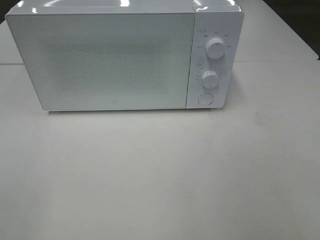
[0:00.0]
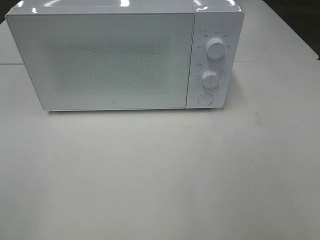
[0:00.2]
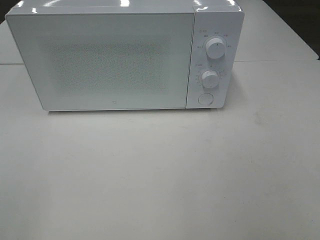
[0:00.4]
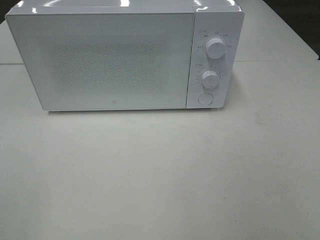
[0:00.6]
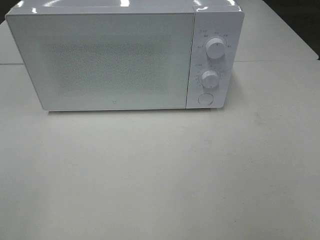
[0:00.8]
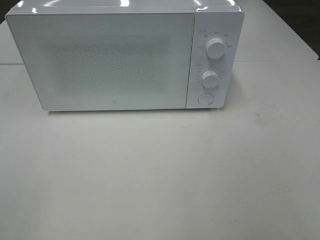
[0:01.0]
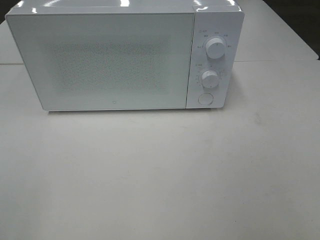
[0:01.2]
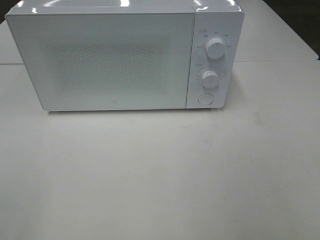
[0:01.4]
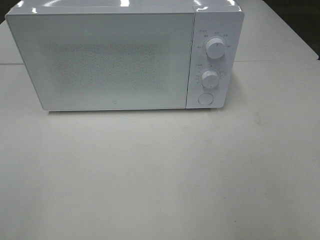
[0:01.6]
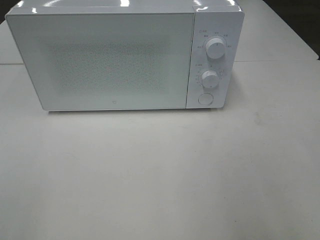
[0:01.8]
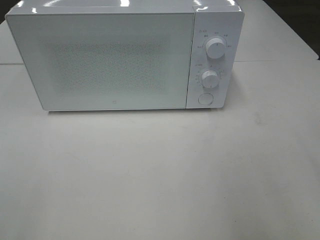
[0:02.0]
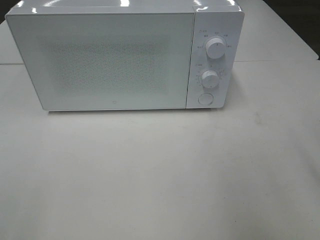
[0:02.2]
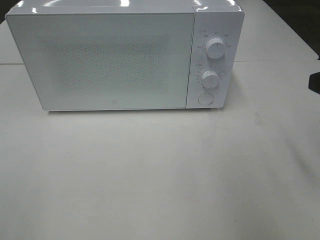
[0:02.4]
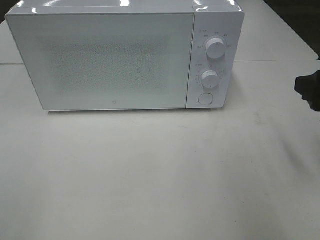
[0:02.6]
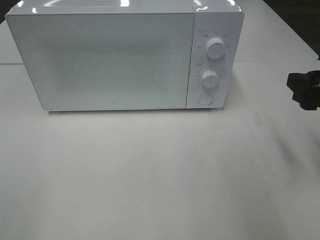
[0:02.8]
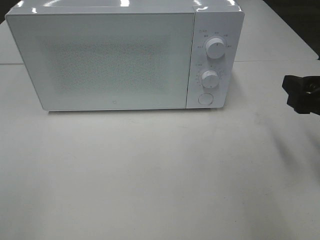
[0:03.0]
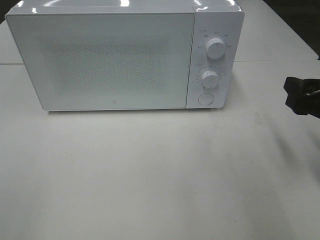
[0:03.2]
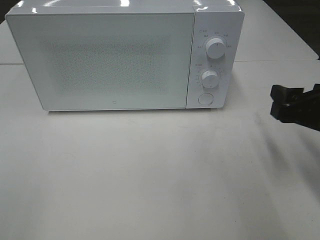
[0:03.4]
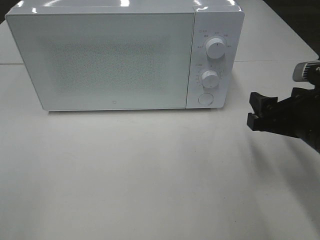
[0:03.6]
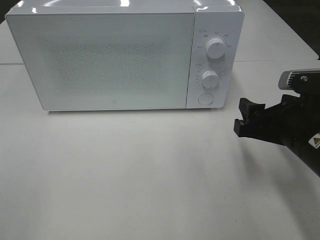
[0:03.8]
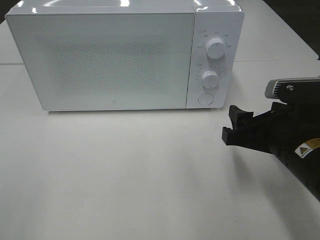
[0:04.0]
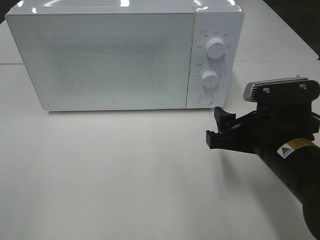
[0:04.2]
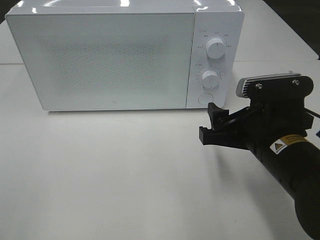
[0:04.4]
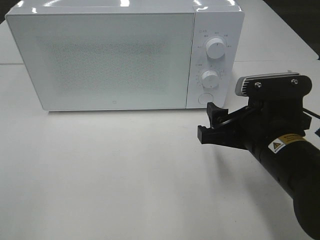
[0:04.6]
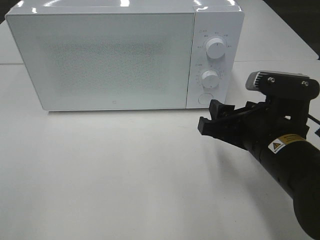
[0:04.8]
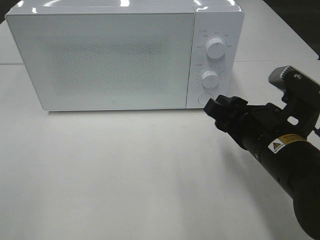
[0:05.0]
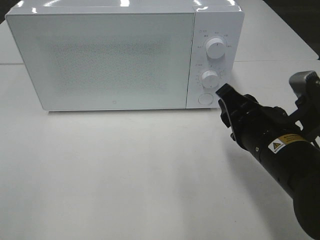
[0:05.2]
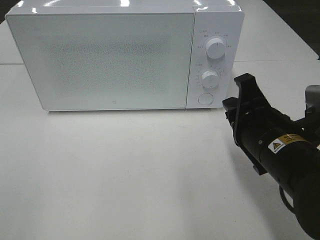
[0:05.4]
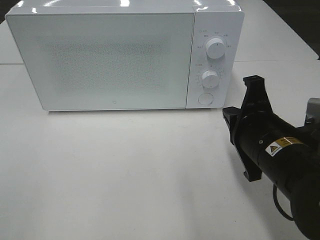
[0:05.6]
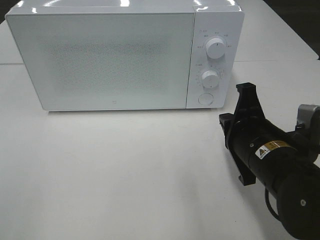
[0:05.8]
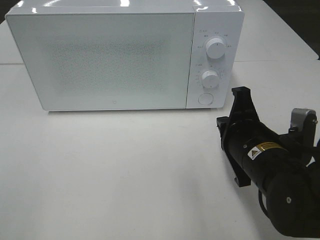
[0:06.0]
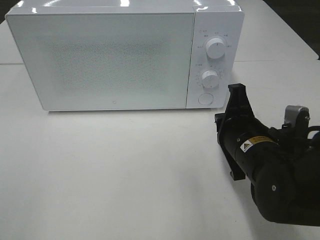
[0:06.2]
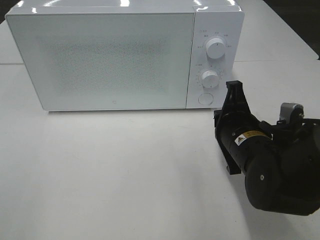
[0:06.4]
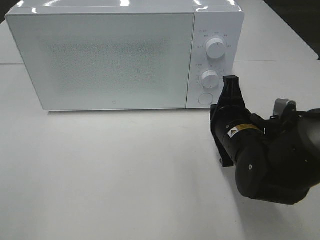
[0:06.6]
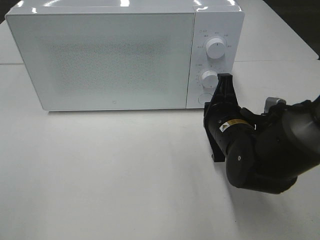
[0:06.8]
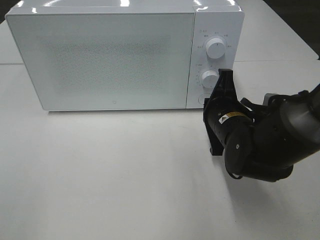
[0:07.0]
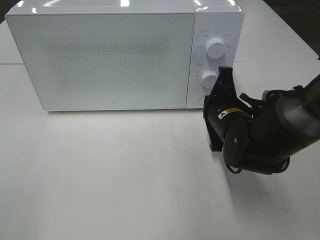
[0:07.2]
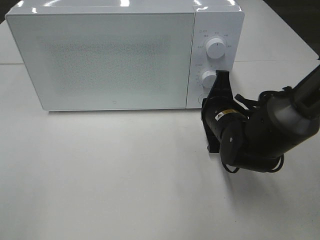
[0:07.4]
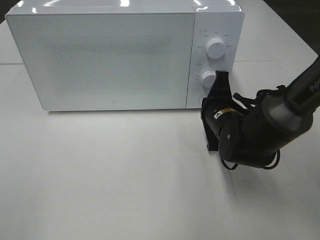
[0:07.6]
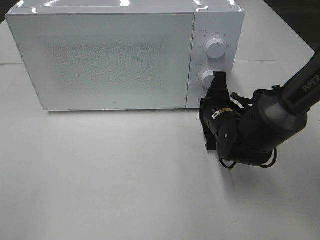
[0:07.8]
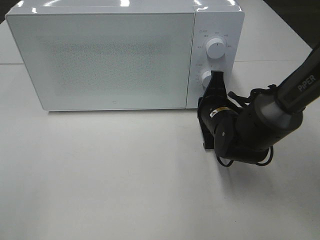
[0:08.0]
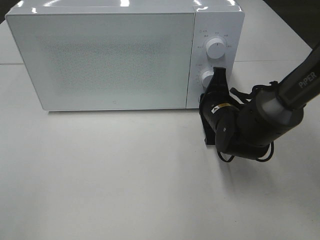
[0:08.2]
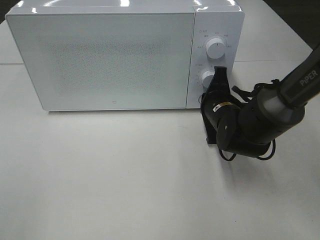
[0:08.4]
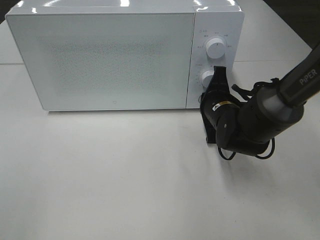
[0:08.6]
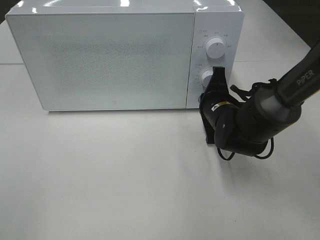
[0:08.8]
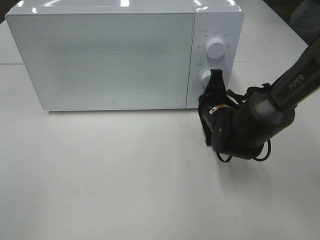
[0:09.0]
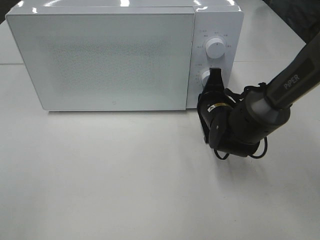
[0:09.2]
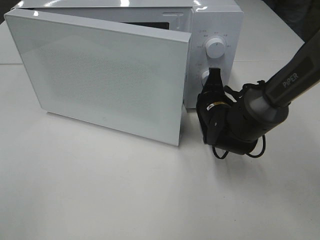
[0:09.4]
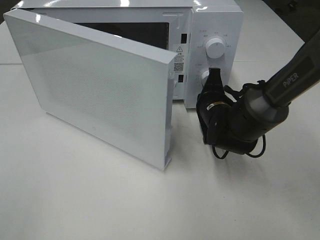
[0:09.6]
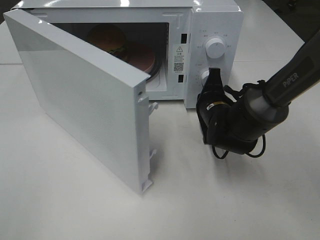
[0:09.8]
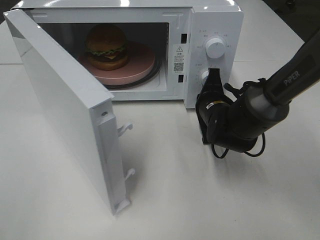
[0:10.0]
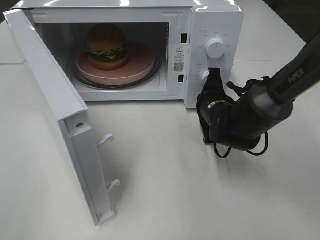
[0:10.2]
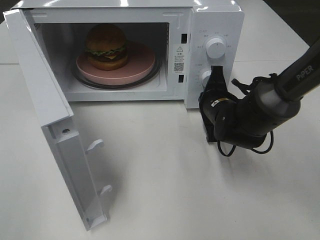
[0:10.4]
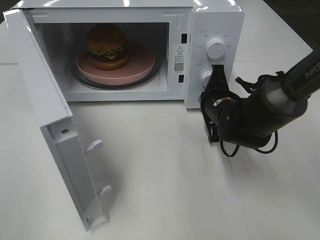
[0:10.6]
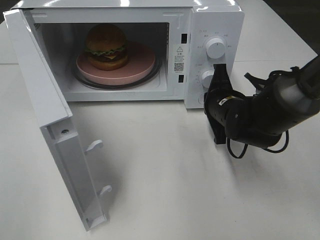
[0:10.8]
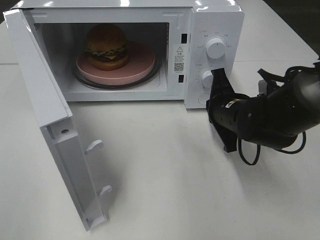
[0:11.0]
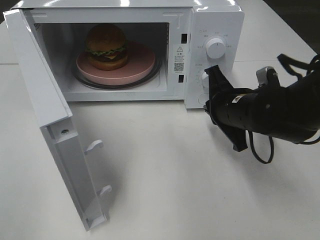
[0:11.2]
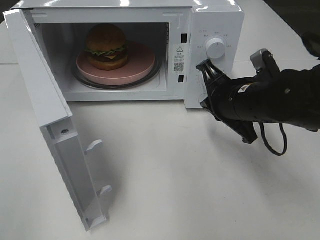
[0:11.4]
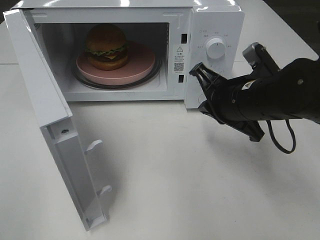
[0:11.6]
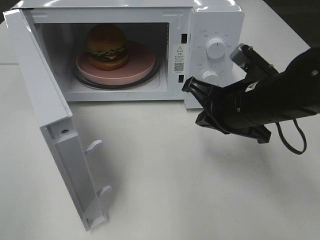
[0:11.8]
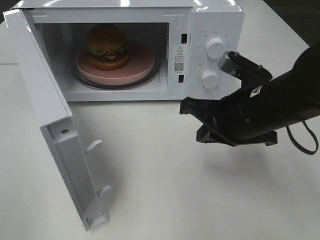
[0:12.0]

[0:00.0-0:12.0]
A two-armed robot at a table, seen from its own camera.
Task of the whole recording: Heat the burger.
Step, 0:00.0 to 0:10.8: Right hand: press the switch.
0:01.6 to 0:03.0: The right gripper is displaced forward and downward by about 20 cm.
0:03.0 to 0:04.4: The right gripper goes some 10 cm to the left.
0:04.4 to 0:06.0: The right gripper closes its fingers.
0:06.0 to 0:07.6: The right gripper shifts approximately 10 cm forward.
0:07.6 to 0:09.0: There are only small adjustments of the grippers.
0:10.4 to 0:12.0: The right gripper shifts approximately 15 cm backward and upward.

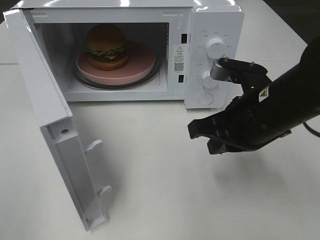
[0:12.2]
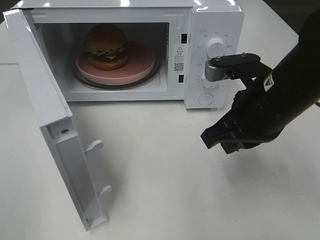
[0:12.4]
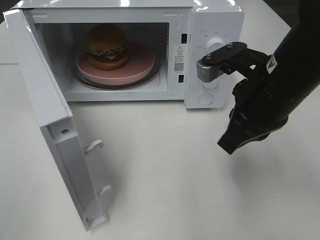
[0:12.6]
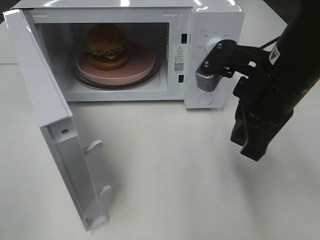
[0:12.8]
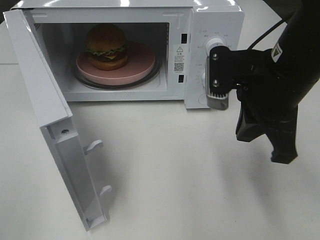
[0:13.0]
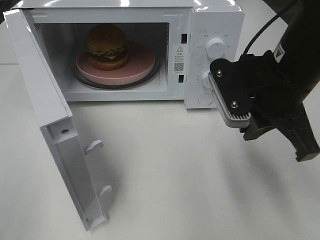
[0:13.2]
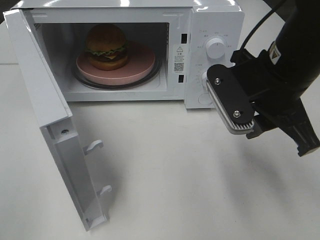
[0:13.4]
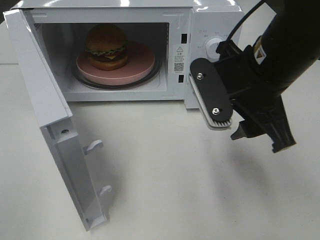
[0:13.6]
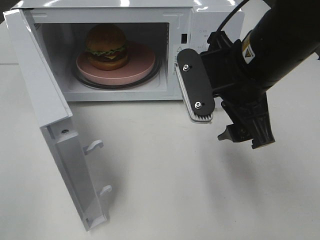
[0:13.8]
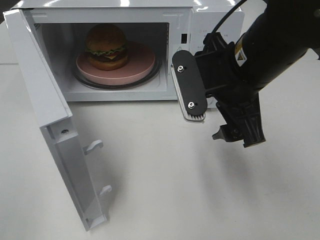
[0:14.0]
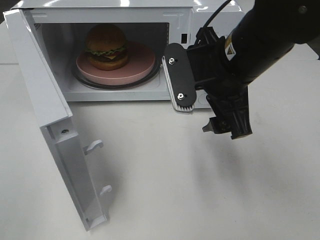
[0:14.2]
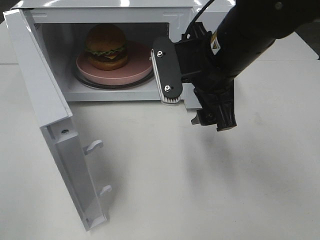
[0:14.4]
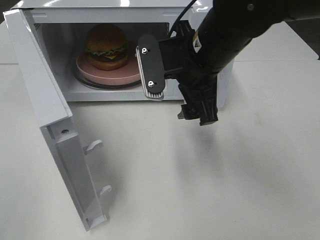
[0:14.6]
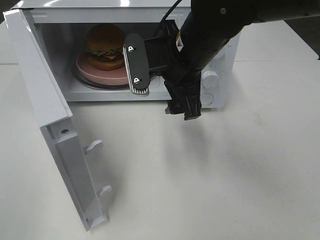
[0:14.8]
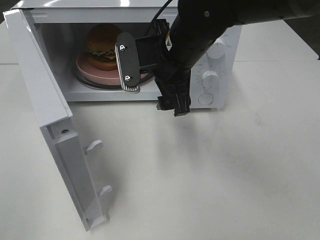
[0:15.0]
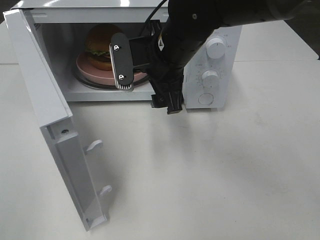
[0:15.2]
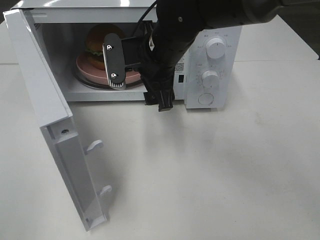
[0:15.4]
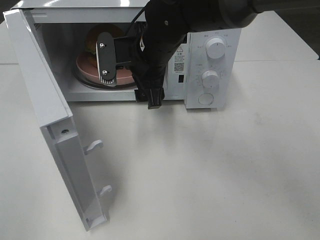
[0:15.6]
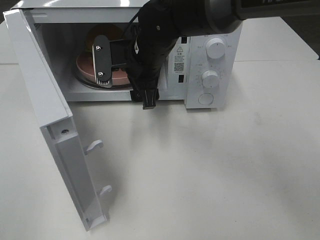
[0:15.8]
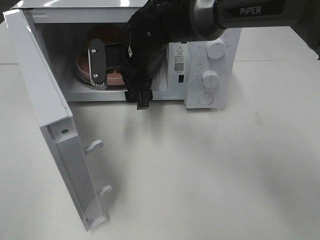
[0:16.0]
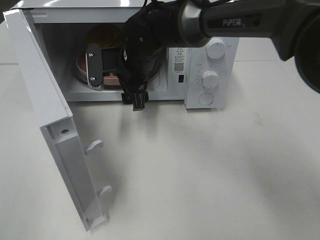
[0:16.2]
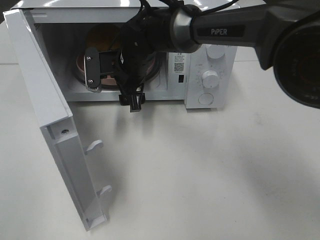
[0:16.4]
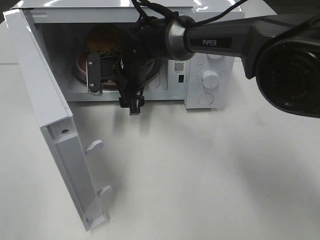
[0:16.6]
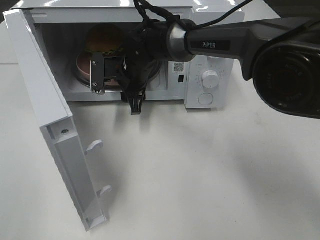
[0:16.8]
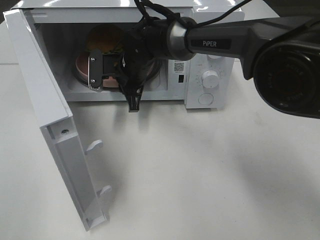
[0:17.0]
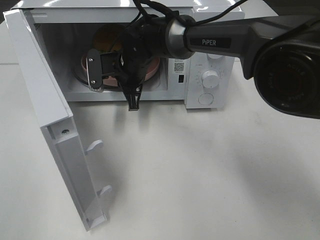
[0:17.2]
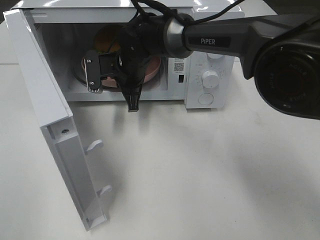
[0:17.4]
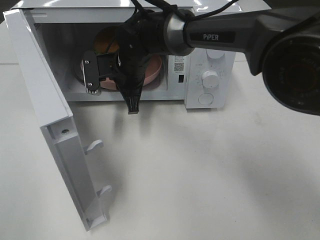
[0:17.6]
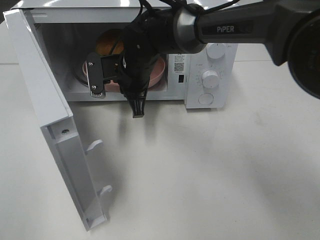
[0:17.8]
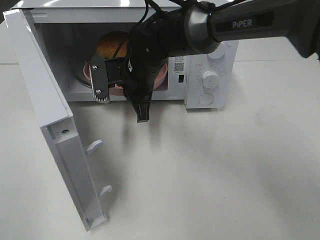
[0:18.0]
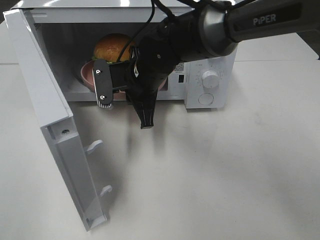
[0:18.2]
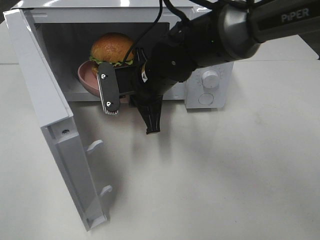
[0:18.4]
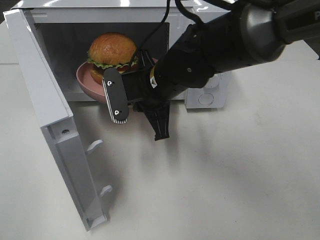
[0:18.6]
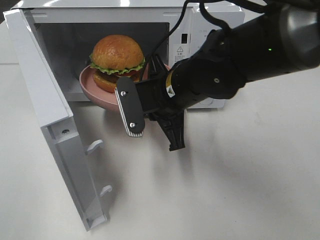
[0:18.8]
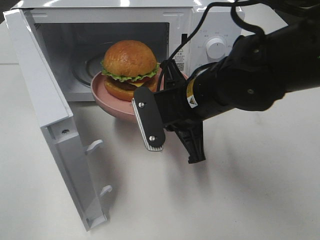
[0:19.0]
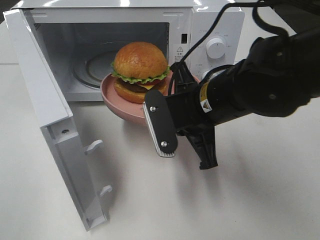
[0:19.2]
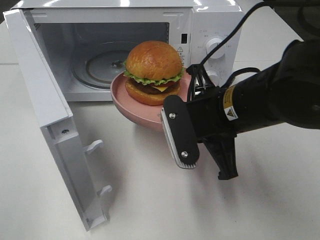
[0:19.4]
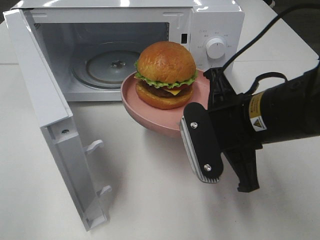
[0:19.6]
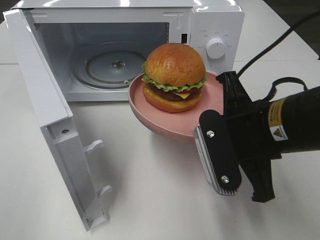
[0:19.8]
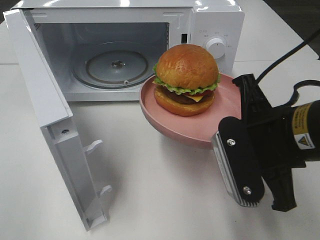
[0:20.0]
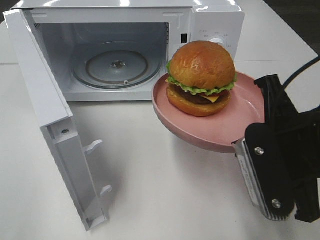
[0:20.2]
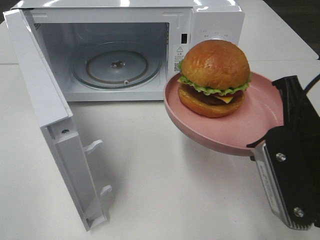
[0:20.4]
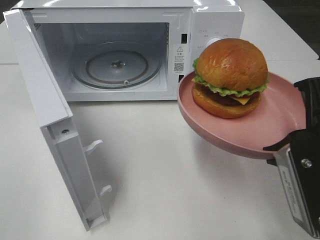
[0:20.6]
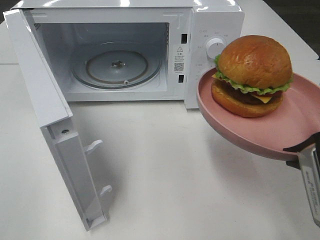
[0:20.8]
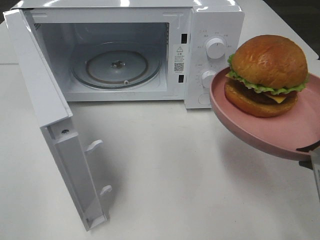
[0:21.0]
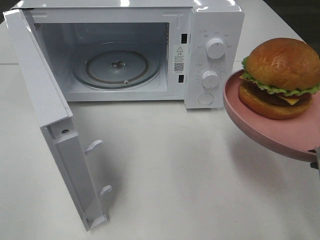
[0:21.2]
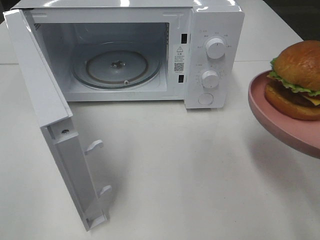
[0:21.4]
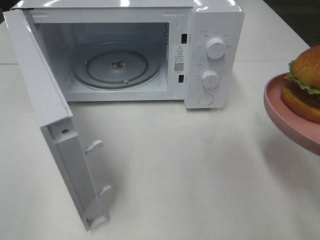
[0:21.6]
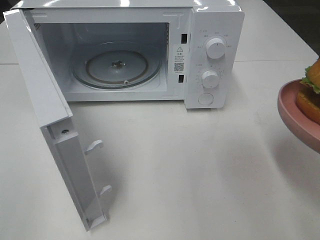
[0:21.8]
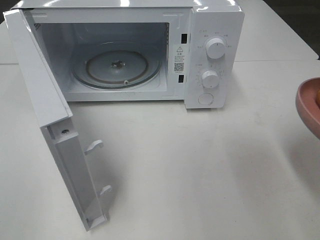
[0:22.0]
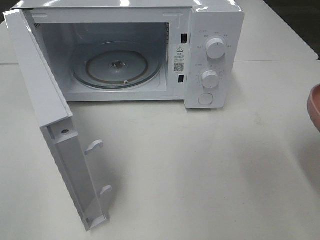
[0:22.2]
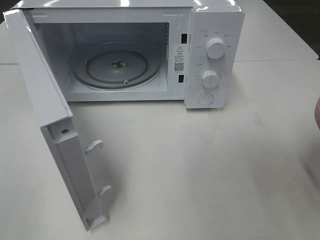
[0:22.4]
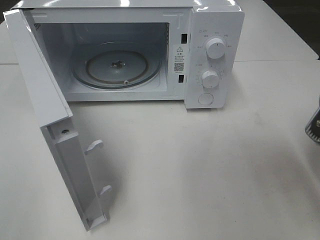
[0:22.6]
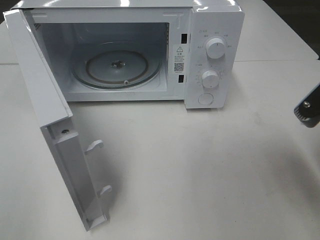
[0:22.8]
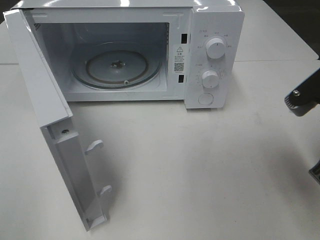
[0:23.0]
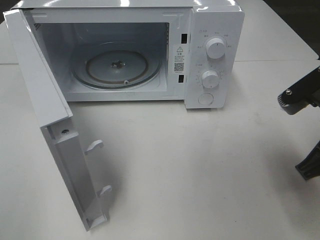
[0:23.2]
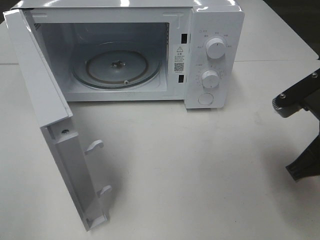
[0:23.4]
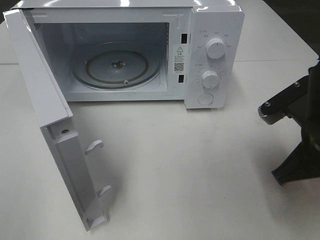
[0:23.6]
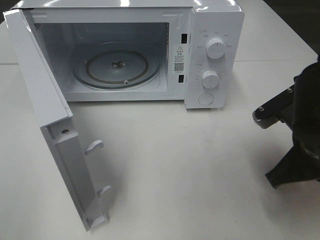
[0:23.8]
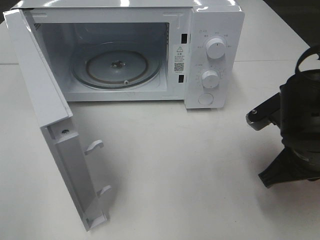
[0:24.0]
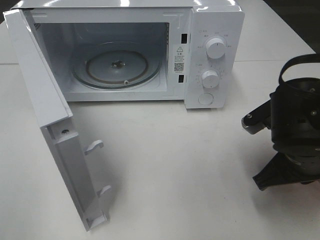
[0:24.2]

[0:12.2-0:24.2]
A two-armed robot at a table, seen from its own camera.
Task of the whole recording: Heat the burger.
Step, 0:12.2 to 0:17.0: Right hand: grab the plate with the hamburger.
0:12.2 to 0:13.8: The right gripper travels upward by about 5 cm, and opens.
0:13.8 to 0:15.2: The right gripper is displaced forward and to the left by some 15 cm.
0:15.2 to 0:16.6: The right gripper is displaced forward, downward and to the left by some 15 cm.
0:16.6 to 0:18.2: The right gripper travels backward by roughly 5 cm, and closes its fingers.
0:18.2 to 0:19.8: The right gripper travels backward and to the right by some 20 cm.
0:19.8 to 0:21.2: The right gripper shifts some 10 cm to the right and backward.
0:22.6 to 0:24.2: The right gripper travels downward, forward and to the left by about 10 cm.
